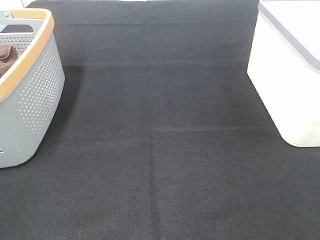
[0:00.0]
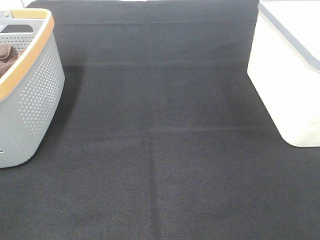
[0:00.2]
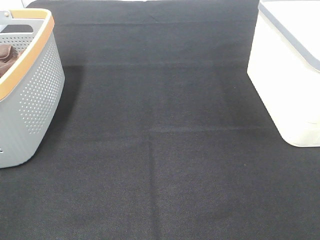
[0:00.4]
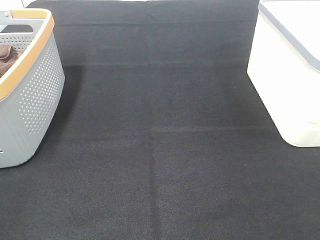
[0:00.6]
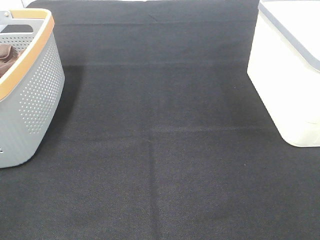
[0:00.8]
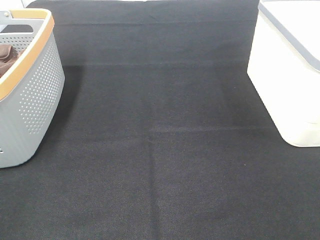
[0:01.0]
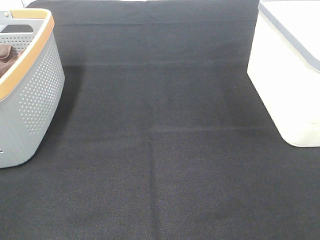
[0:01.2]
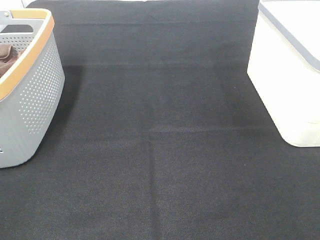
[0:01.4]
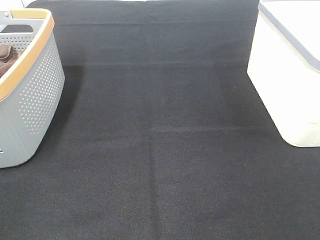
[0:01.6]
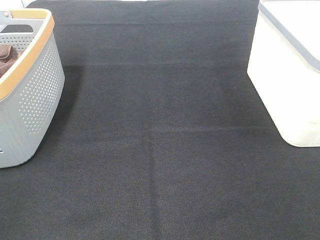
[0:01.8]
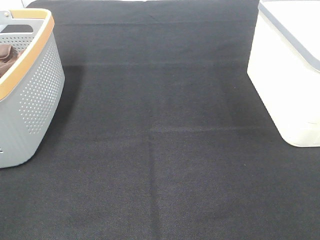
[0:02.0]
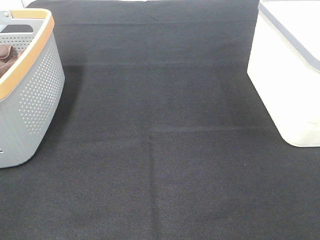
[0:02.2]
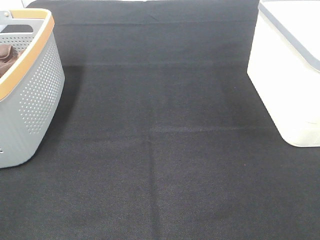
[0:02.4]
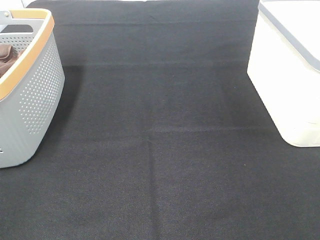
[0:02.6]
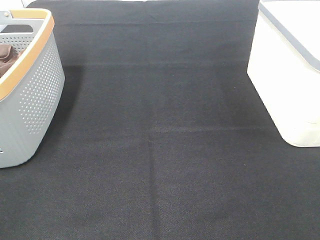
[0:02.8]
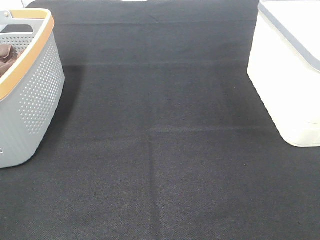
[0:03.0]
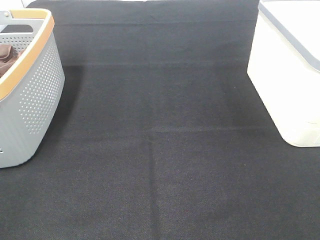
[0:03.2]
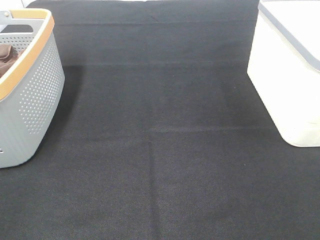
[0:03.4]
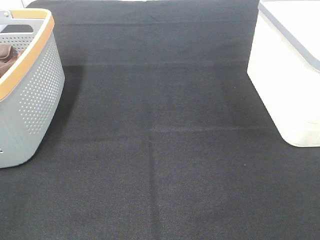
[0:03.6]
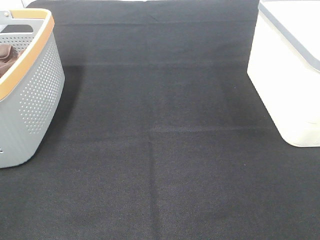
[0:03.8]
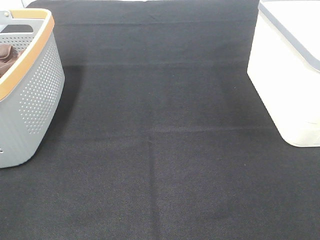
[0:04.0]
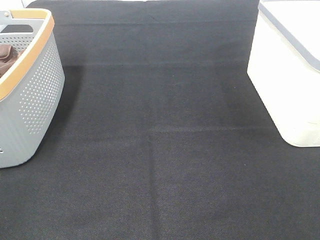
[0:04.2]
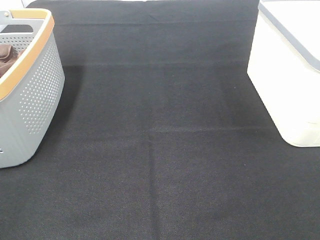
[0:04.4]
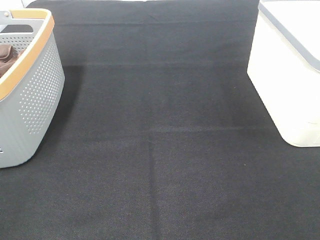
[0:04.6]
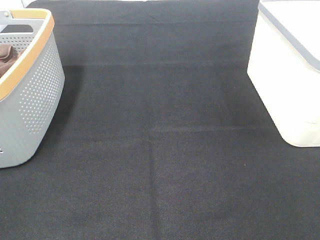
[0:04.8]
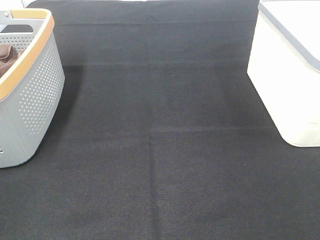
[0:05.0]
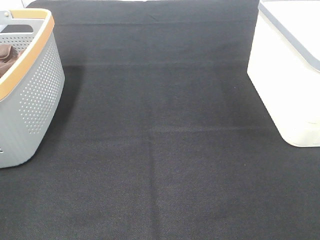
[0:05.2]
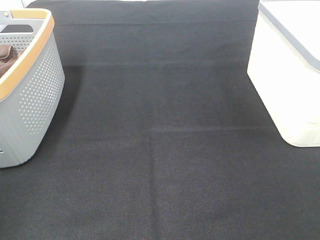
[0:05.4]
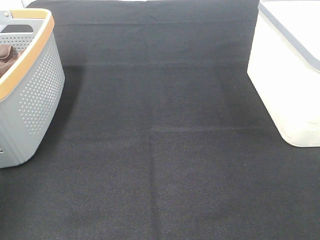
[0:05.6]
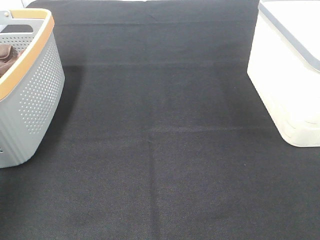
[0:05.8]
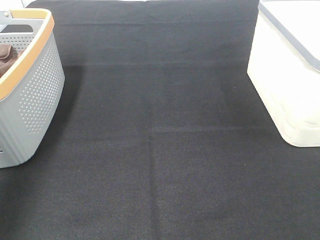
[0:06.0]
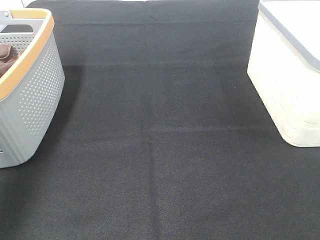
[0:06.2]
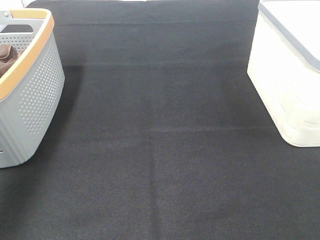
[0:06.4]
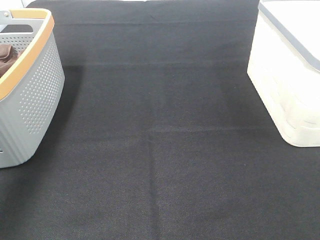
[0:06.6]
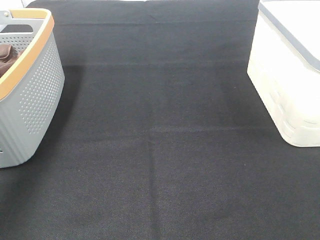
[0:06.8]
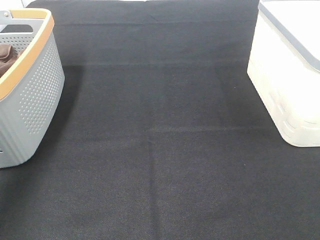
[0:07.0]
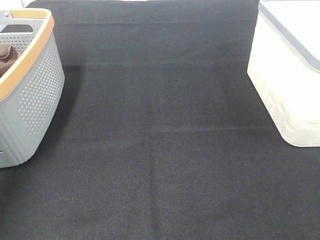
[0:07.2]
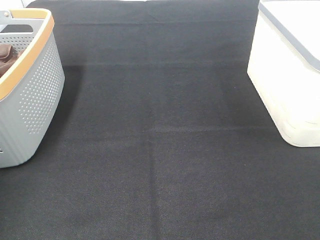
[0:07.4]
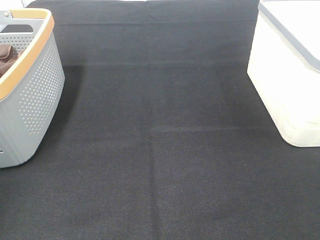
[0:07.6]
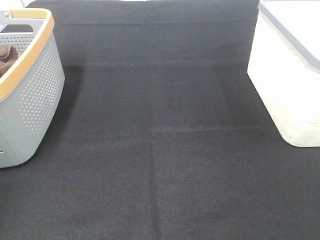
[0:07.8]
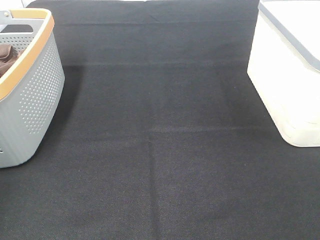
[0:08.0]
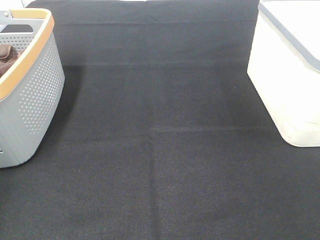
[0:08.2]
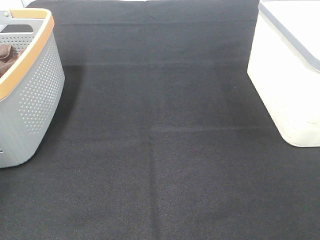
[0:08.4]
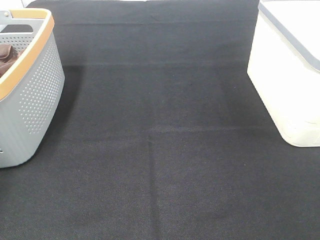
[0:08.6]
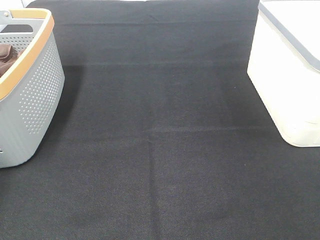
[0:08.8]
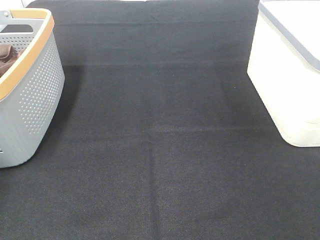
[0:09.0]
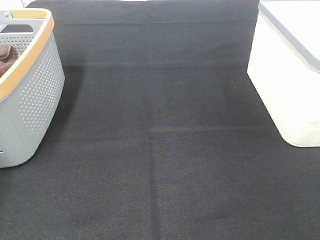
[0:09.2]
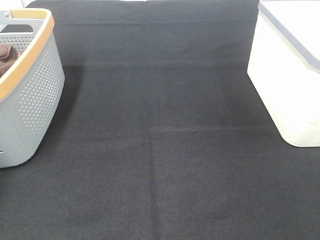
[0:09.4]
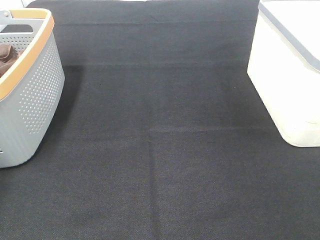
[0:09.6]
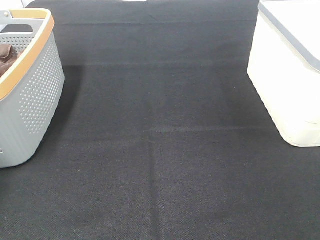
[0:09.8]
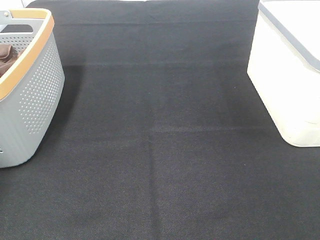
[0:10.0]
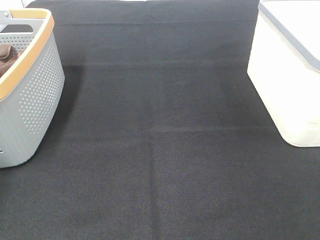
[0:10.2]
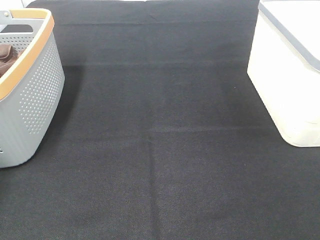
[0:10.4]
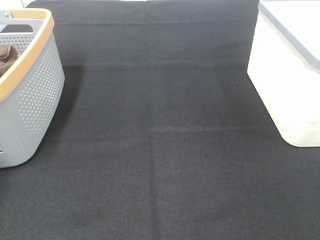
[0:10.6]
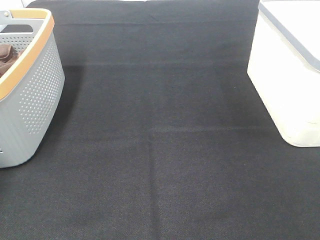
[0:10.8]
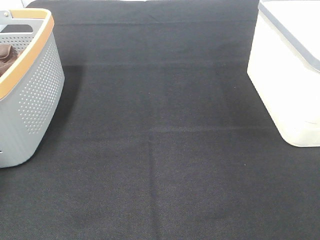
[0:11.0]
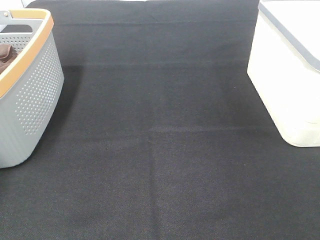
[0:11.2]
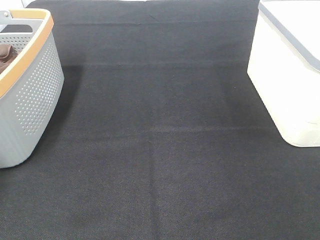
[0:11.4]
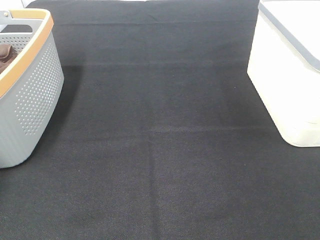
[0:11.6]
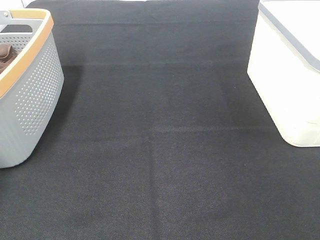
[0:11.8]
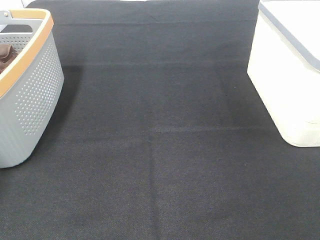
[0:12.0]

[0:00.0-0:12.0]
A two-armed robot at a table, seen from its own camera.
Task of the whole recording: Remove the towel and place it.
0:00.0 to 0:04.4: The two grippers keep their place.
0:04.4 to 0:06.0: The left gripper shifts some 25 cm forward and upward.
0:06.0 to 0:07.6: The left gripper travels to the left, forward and downward by about 20 cm.
0:09.0 to 0:10.4: Both grippers stay about where they are.
0:10.4 to 0:12.0: The left gripper shifts about 5 cm upward, and closes.

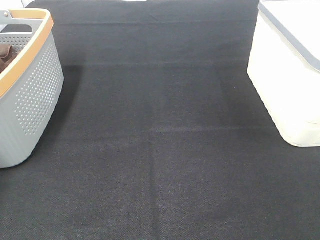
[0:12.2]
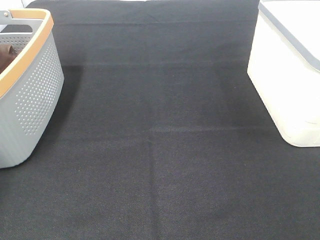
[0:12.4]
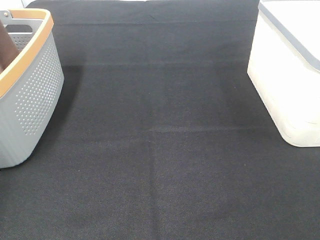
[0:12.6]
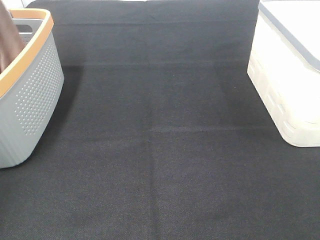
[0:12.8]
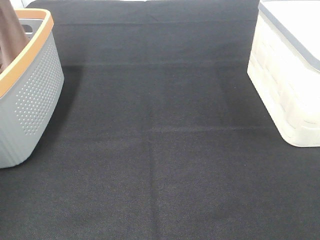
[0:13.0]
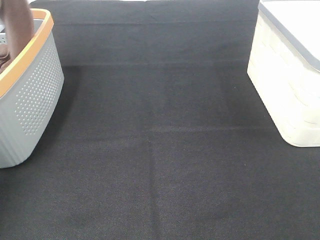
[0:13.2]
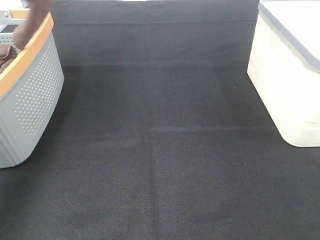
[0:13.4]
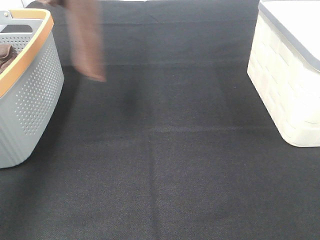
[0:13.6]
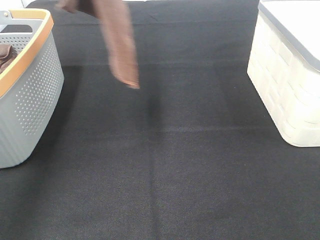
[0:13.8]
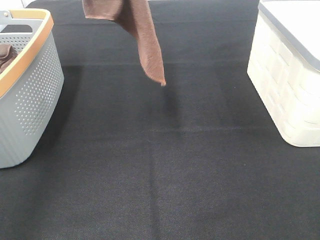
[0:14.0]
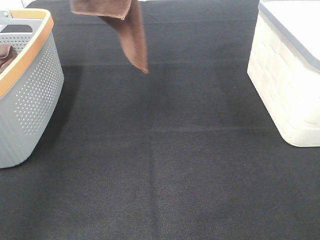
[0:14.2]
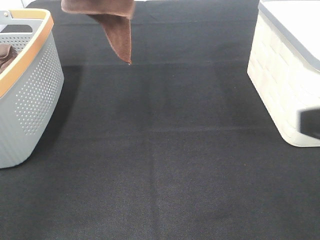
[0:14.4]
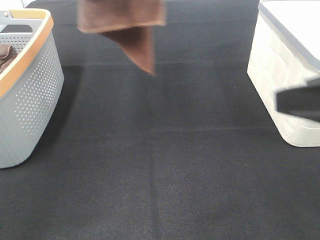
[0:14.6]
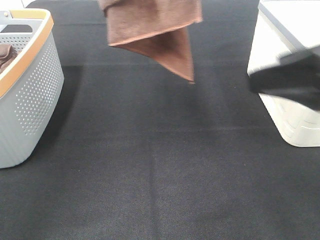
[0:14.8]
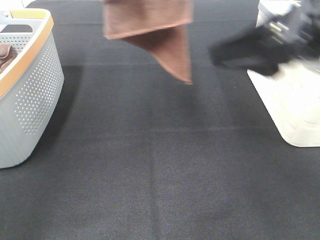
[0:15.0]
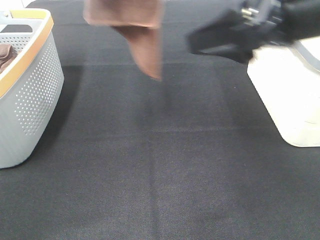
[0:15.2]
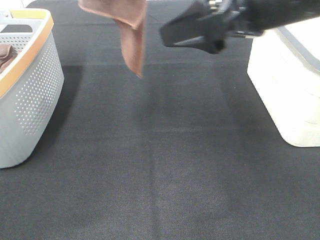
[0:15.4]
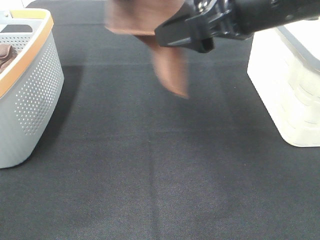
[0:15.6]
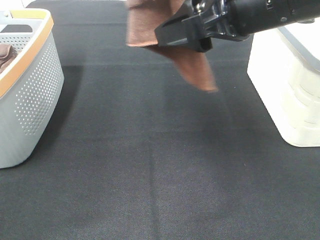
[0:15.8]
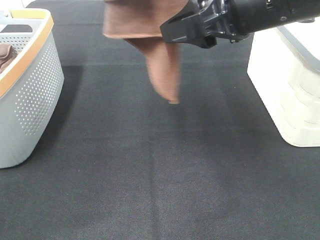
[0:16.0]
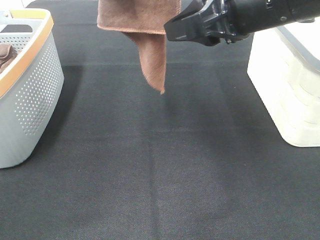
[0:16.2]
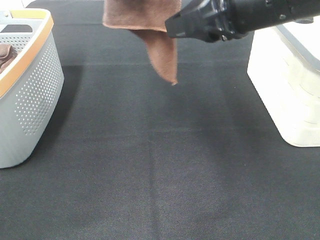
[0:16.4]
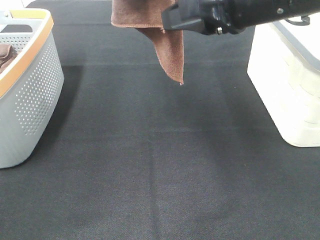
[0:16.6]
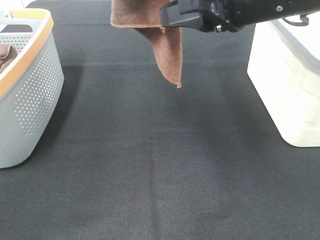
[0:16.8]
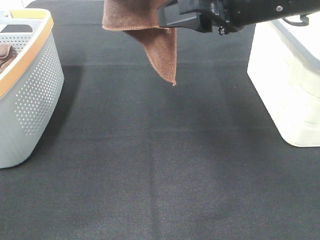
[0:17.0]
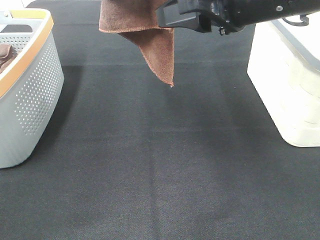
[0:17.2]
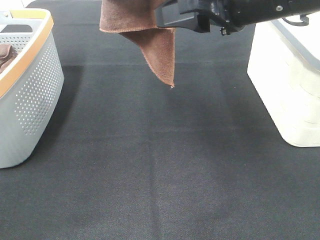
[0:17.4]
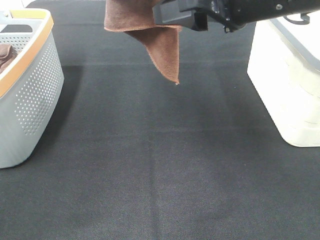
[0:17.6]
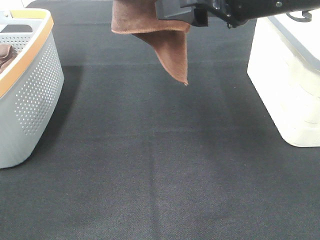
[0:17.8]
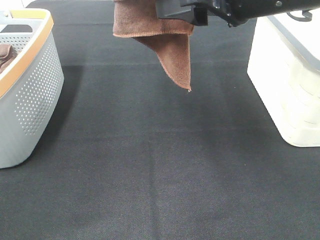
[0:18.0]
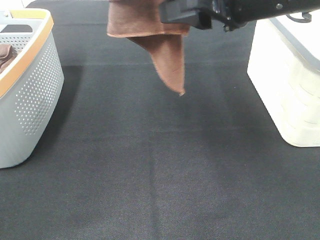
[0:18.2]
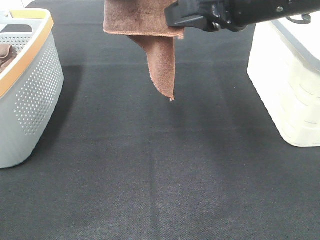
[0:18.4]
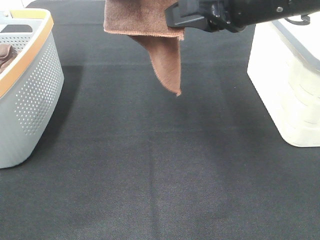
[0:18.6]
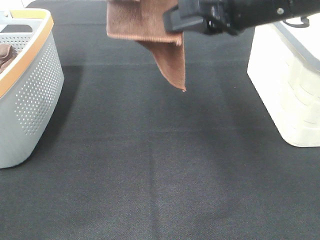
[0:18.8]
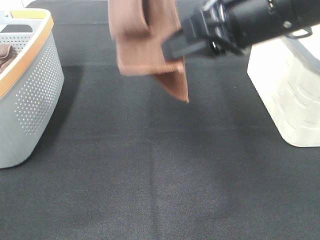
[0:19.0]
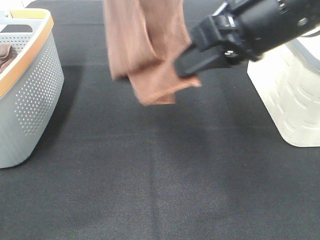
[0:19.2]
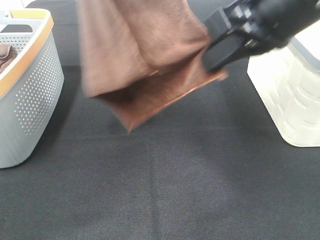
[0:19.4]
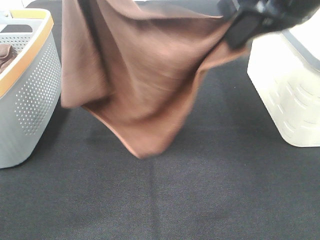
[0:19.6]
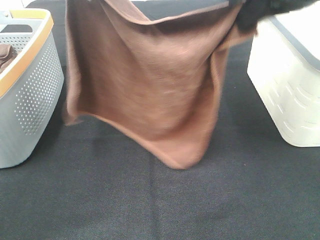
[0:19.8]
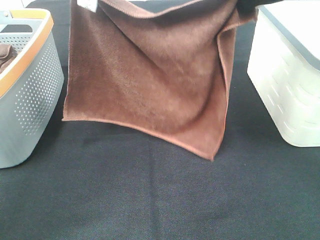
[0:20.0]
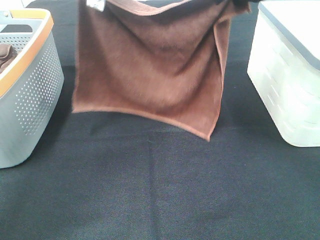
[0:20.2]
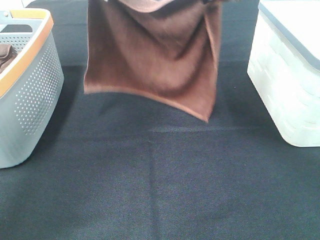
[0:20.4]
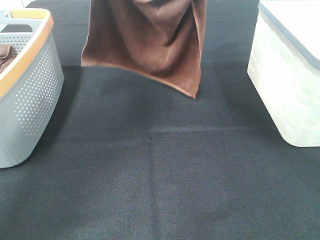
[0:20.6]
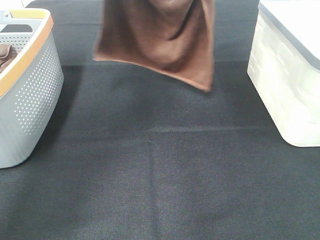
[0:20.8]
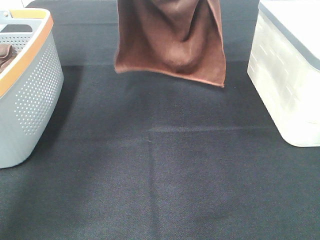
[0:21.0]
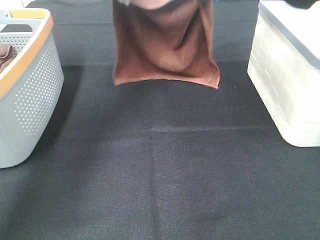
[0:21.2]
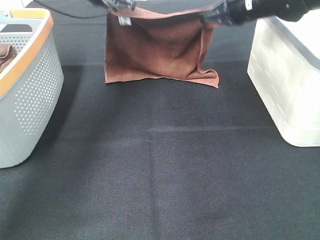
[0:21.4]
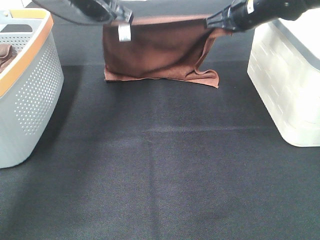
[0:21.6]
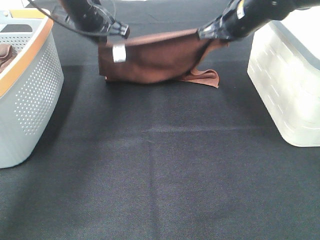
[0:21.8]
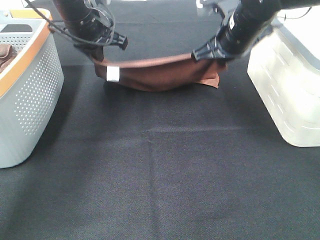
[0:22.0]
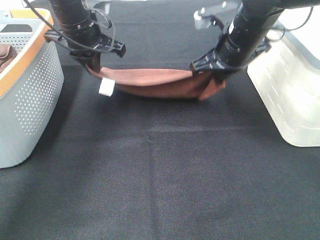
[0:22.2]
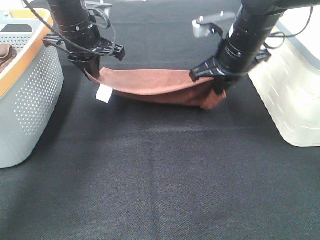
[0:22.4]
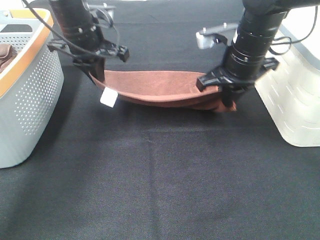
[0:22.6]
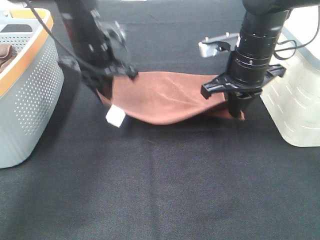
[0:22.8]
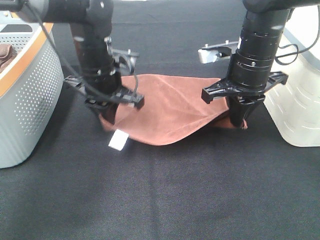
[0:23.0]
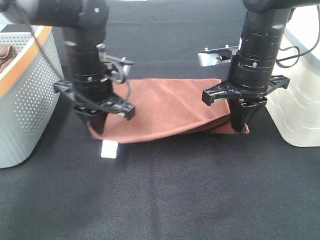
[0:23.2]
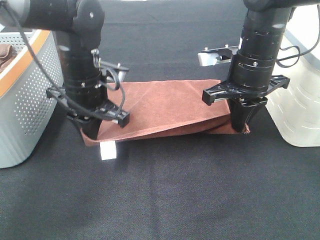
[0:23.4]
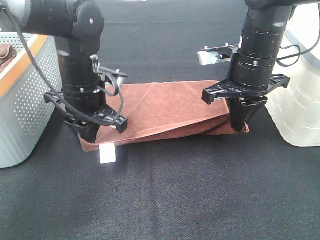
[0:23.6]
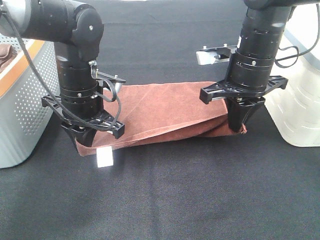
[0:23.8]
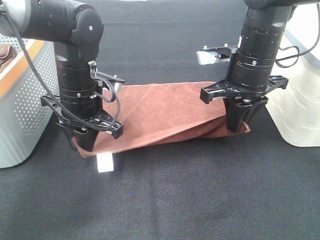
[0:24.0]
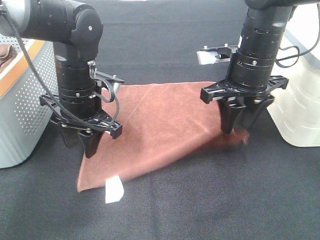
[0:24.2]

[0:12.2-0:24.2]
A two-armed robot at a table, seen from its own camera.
Task of the whole recording: Remove the towel and place it.
Step, 0:12.2 to 0:17.2: Right hand: grab a corner of the brown towel and straighten it.
Step, 0:17.4 to 0:19.4: Left hand: spread the brown towel flat on the table.
Step, 0:17.4 to 0:19.4: Right hand: spread the brown towel flat on the table.
0:12.2 to 0:13.8: The left gripper goes some 35 cm to the right, upward and backward.
0:13.8 to 0:15.2: The right gripper goes approximately 25 cm forward and to the left, while the left gripper heads to the right, covering some 5 cm.
0:15.2 to 0:16.6: The right gripper closes up.
0:16.6 to 0:18.2: The grippers stay close to where they were, moving slightly.
0:18.2 to 0:19.8: The left gripper shifts some 10 cm downward, while the right gripper changes place by some 5 cm, and closes.
0:19.8 to 0:21.2: The grippers both shift forward and downward by about 20 cm.
0:21.2 to 0:22.6: The right gripper is displaced backward and downward by about 10 cm. The left gripper moves downward and backward, approximately 10 cm.
0:22.6 to 0:24.2: The right gripper opens; the left gripper goes some 10 cm backward and downward, and opens.
